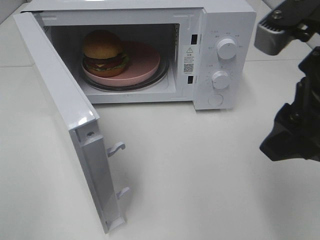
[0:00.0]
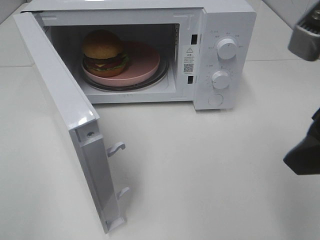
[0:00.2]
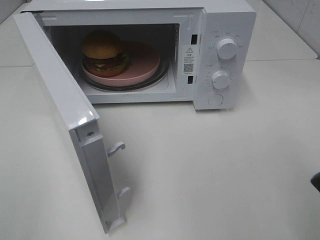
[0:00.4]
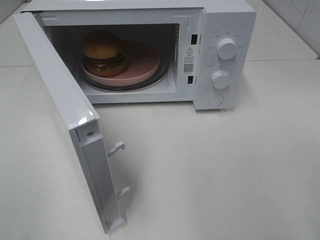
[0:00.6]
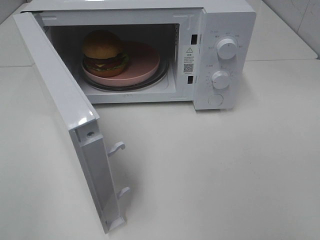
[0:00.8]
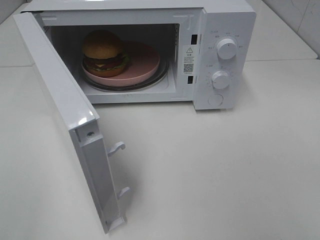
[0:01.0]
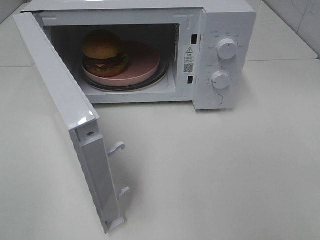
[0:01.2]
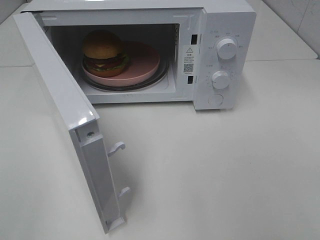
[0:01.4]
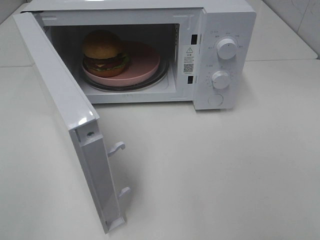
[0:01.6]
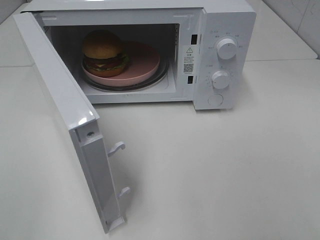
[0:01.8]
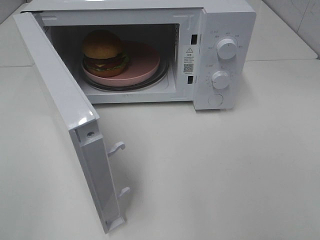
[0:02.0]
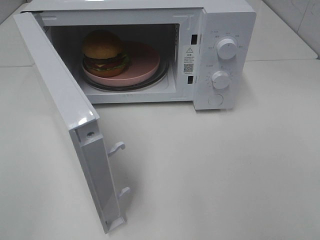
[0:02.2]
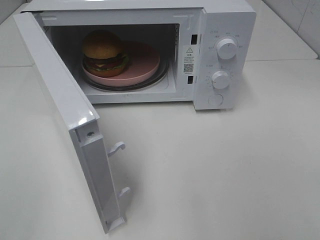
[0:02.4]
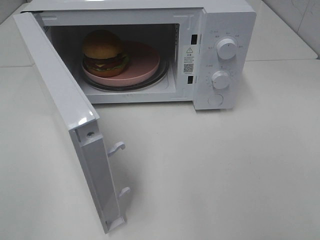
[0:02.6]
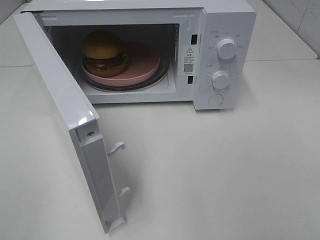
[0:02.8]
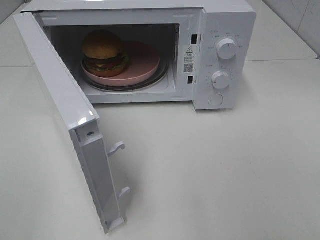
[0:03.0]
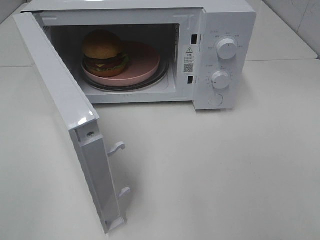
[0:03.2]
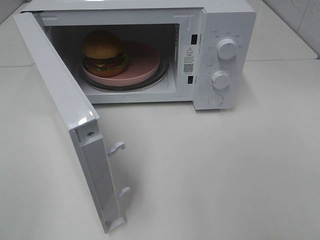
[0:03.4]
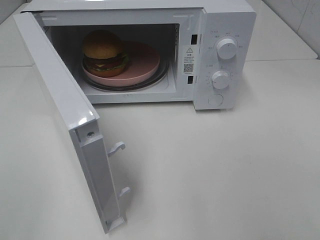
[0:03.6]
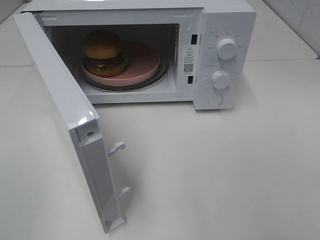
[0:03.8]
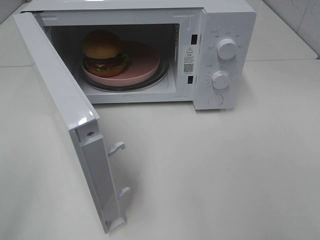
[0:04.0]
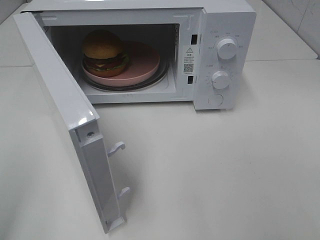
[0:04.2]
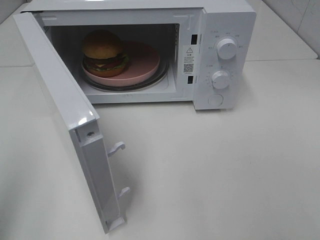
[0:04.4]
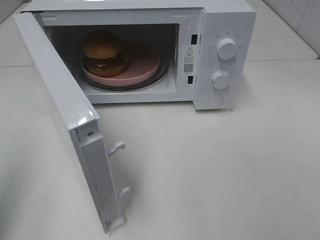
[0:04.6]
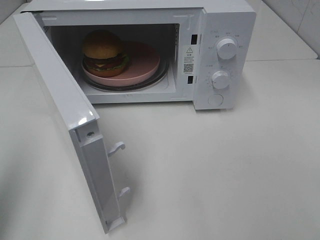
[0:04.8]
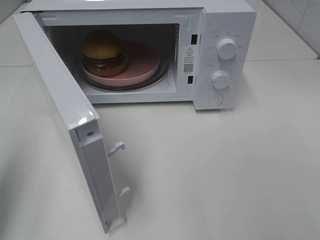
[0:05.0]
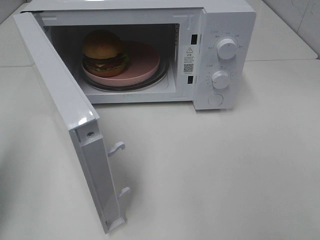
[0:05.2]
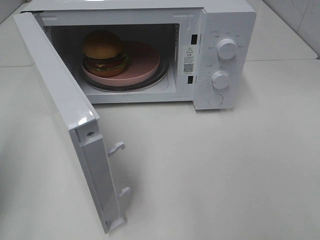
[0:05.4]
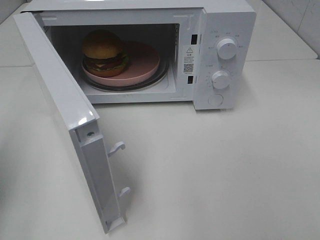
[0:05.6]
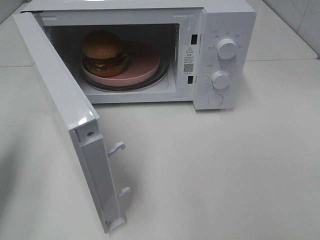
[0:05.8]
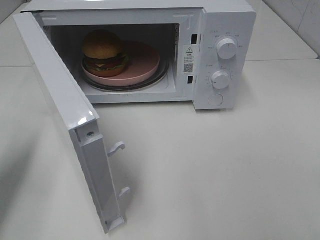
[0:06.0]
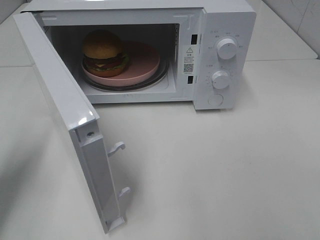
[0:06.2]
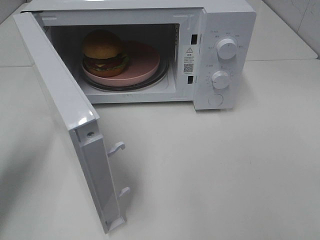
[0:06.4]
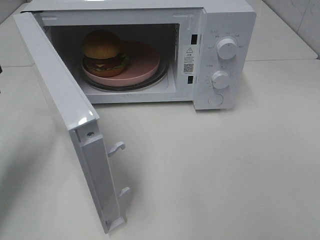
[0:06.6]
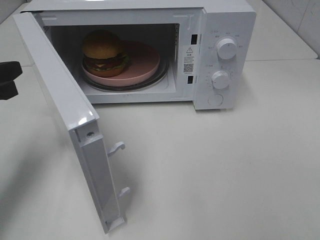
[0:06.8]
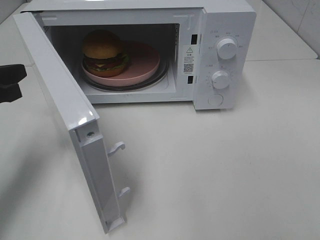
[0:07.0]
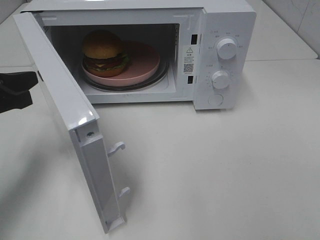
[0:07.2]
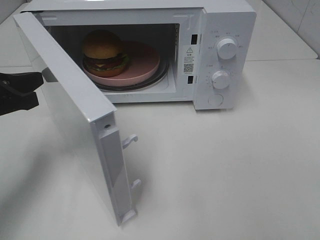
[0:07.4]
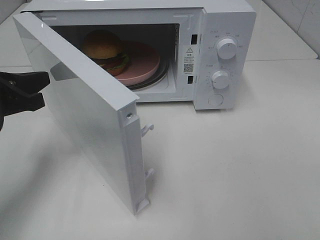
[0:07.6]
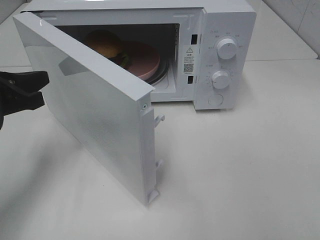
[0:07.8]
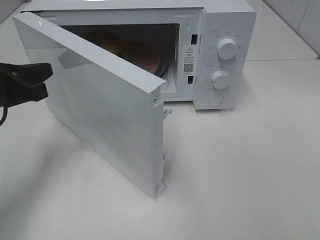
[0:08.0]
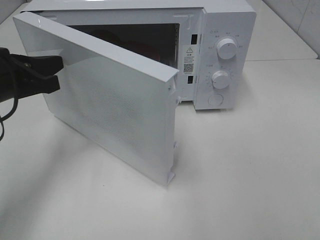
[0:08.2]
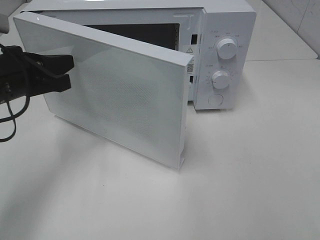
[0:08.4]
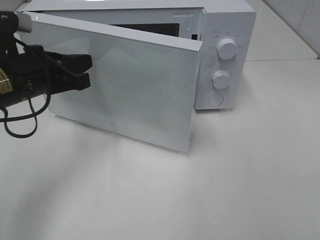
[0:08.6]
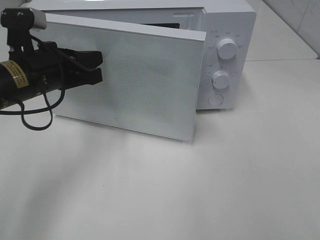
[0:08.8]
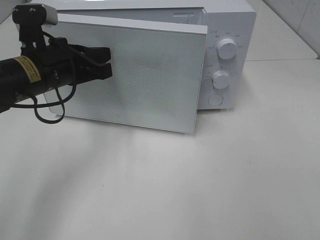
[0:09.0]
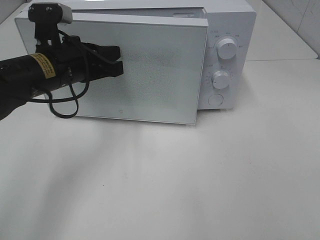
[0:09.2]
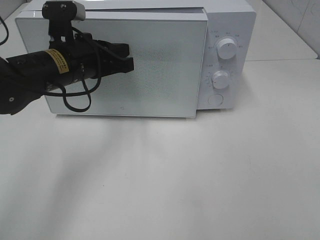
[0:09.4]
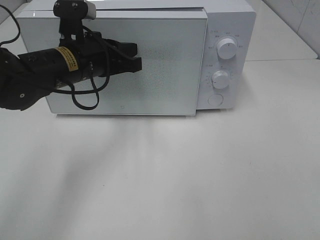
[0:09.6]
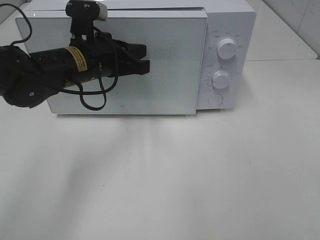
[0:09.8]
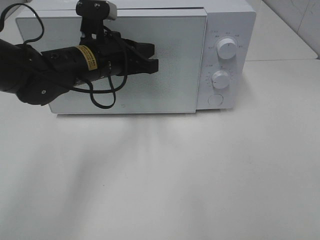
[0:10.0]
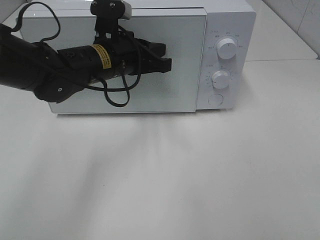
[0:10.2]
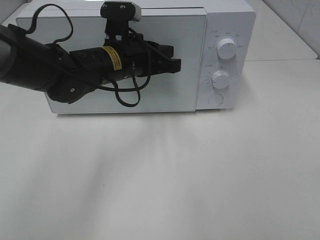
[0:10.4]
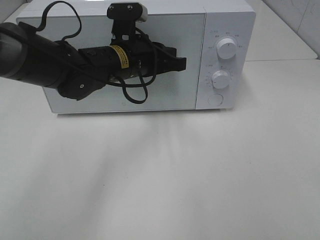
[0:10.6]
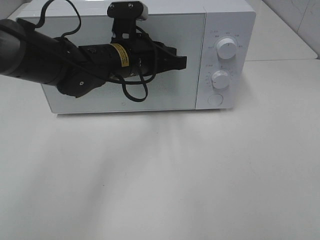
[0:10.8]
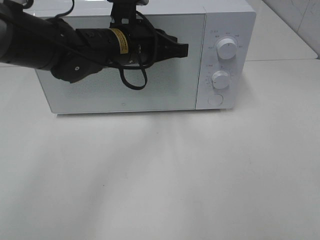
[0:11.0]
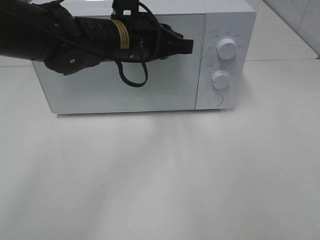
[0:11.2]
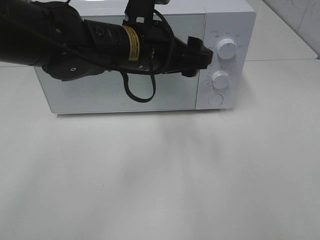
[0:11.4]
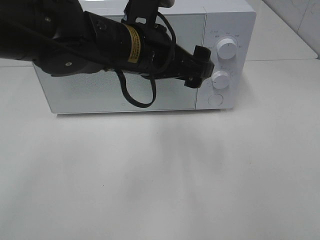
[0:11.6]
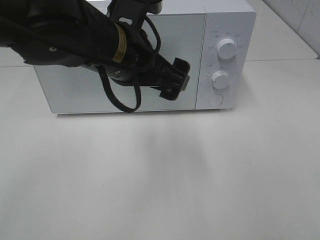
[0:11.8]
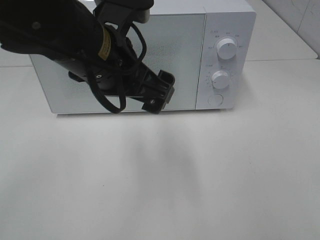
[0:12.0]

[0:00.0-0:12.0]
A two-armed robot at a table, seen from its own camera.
Task of the whole recording: Heat the burger.
Step, 0:00.0 to 0:10.4: Left hand: close the microwave door.
0:00.0 to 0:01.6: The right gripper shifts approximately 20 cm backward and to the right.
0:04.4 to 0:06.0: The left gripper travels forward and downward by roughly 15 cm.
0:06.0 to 0:07.6: The left gripper travels to the right by roughly 5 cm.
0:07.6 to 0:09.0: The left gripper moves to the right and forward, some 10 cm.
0:09.0 to 0:10.4: The left gripper shifts approximately 10 cm to the right and forward.
0:10.4 to 0:12.0: The left gripper goes roughly 15 cm backward and upward, and opens up.

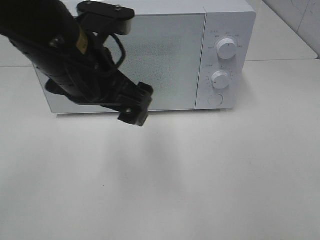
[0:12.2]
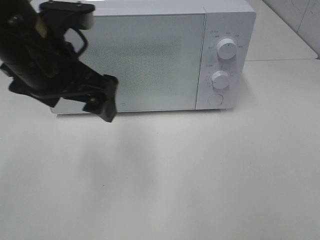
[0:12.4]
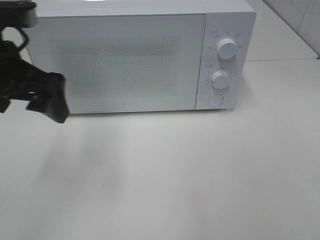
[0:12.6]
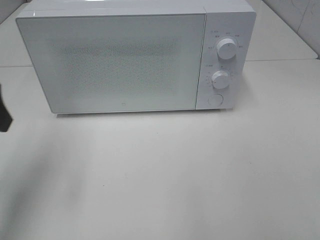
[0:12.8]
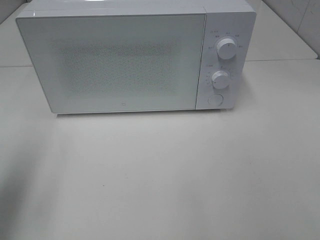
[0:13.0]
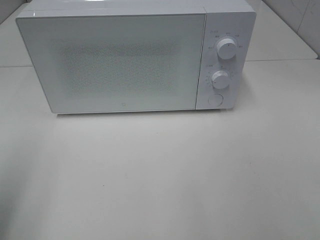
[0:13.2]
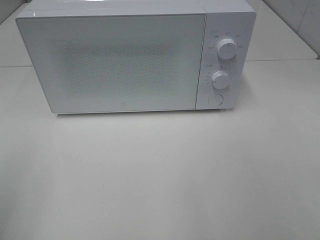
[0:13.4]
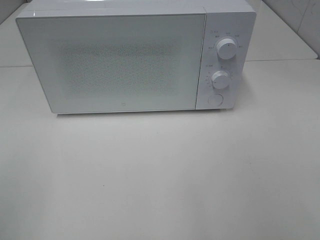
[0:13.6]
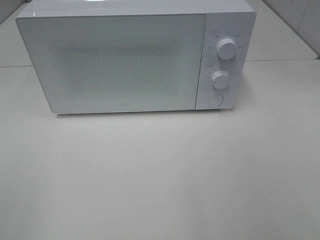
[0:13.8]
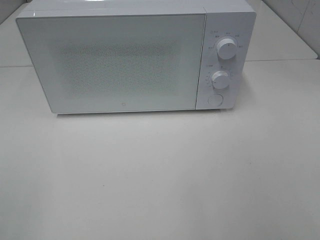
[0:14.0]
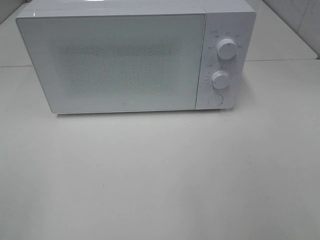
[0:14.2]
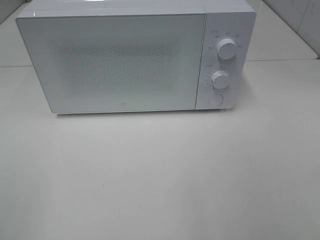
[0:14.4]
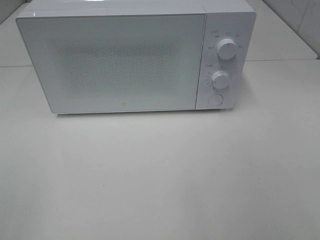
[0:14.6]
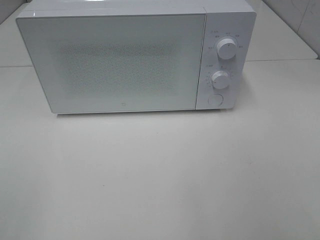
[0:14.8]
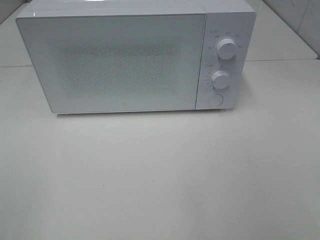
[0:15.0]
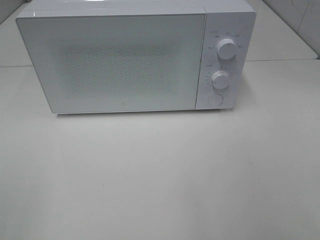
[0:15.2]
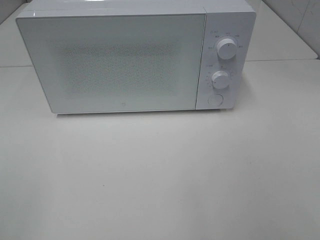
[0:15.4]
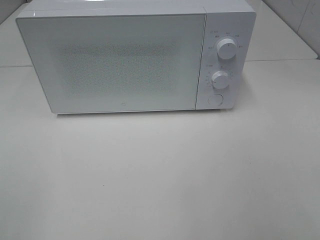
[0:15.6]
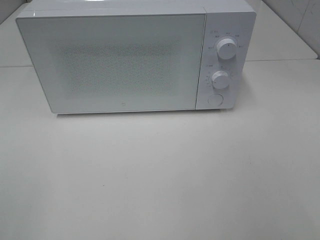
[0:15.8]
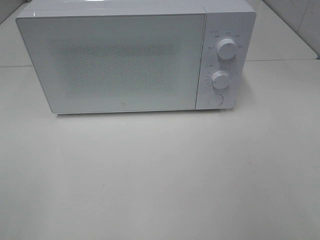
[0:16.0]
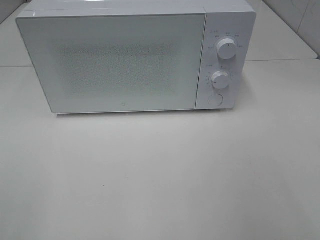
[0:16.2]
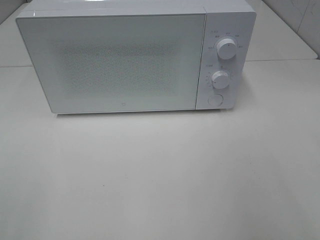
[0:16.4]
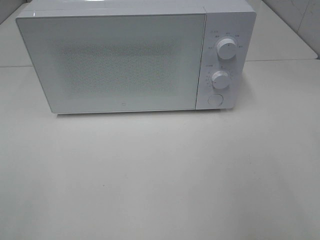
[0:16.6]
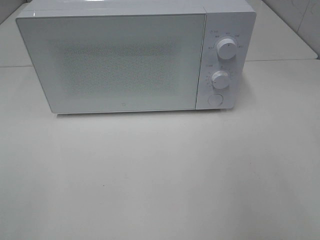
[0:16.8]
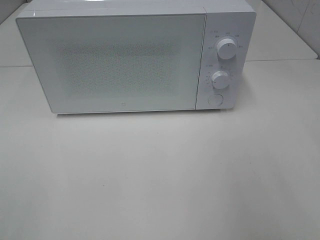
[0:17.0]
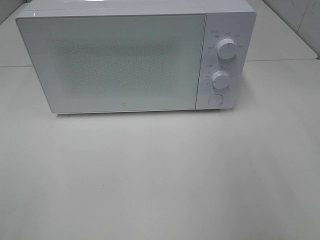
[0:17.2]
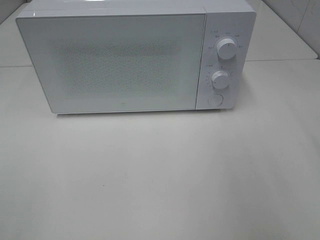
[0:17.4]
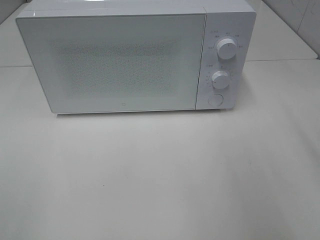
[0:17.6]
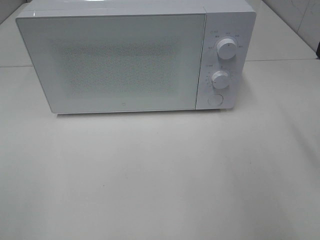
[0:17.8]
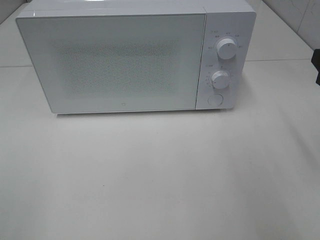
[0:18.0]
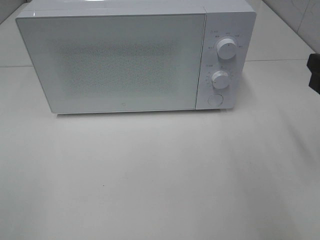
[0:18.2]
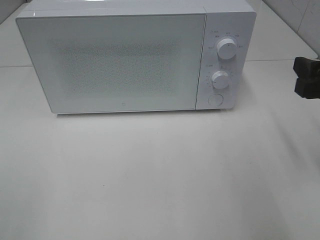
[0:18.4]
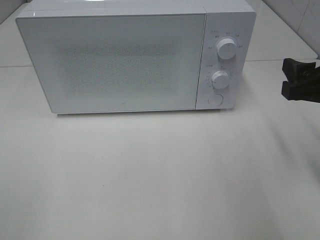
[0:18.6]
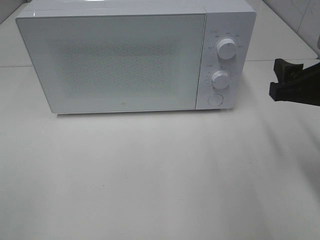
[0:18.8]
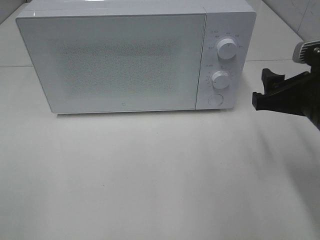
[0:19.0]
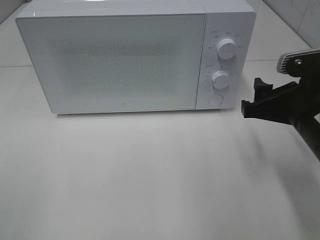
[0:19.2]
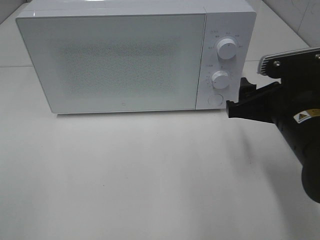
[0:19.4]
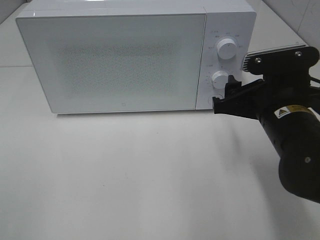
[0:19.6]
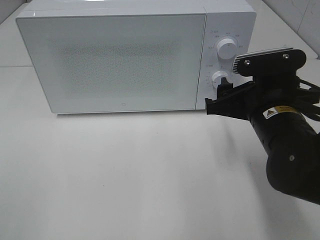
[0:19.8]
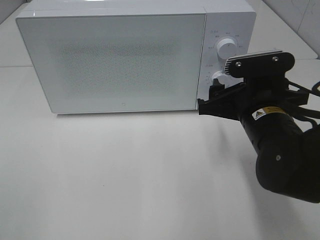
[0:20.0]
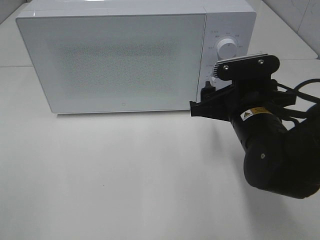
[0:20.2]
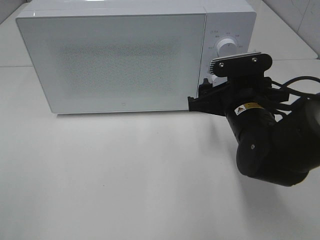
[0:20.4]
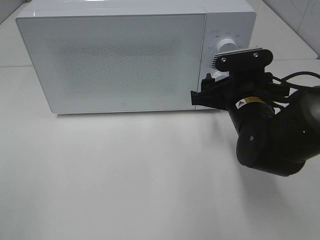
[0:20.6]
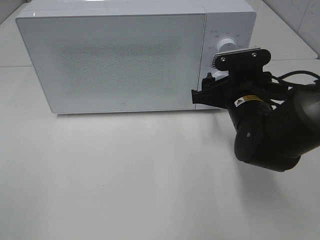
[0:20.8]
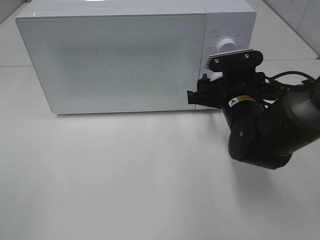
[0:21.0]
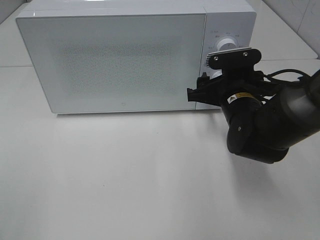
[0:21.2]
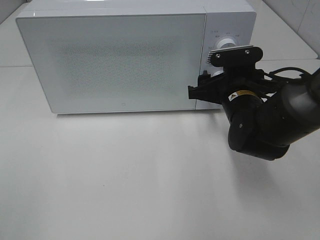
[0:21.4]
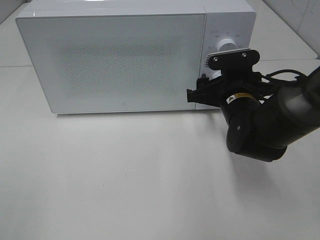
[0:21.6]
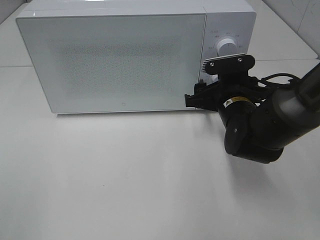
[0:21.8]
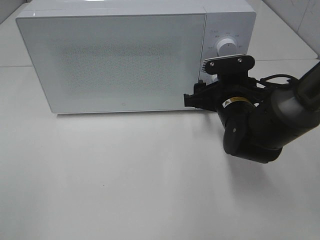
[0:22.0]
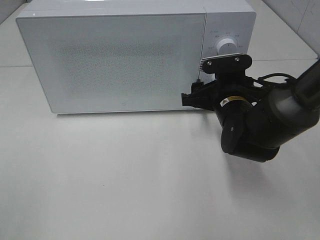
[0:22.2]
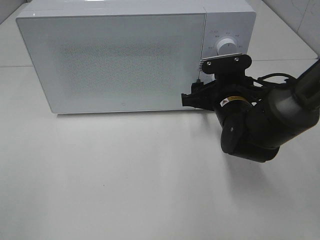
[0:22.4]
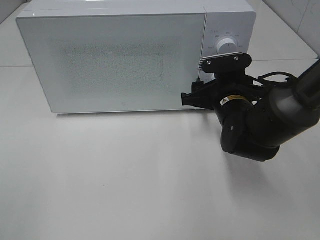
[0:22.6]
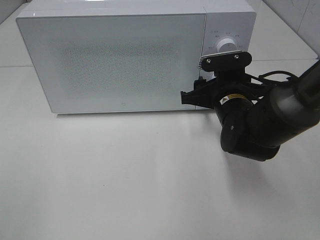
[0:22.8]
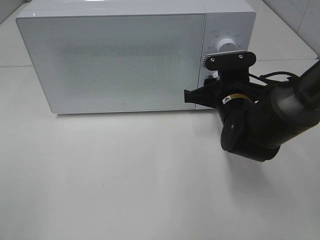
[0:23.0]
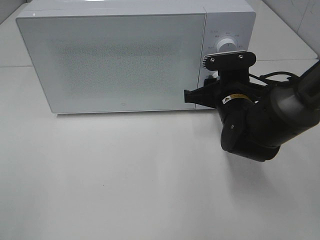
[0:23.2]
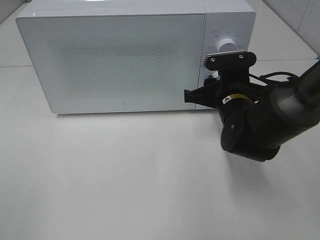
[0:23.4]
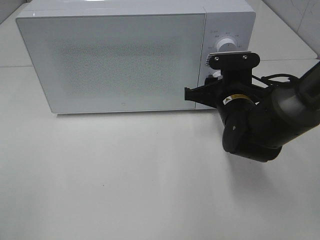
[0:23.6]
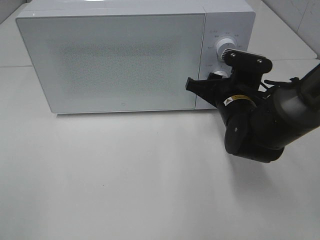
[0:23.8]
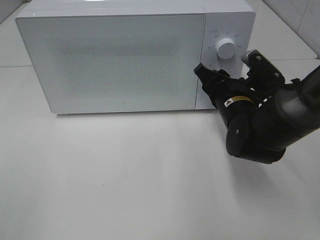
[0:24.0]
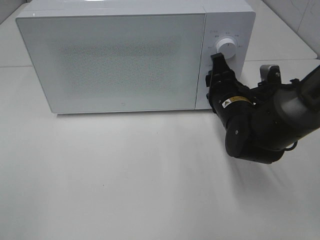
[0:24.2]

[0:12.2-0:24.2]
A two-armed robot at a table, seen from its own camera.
Task of the whole recording: Heat the burger.
0:12.2 to 0:13.8: The left gripper travels backward and to the left by roughly 35 cm.
0:13.8 to 0:15.2: Neither gripper changes place.
0:16.6 to 0:18.2: The right gripper is displaced forward and downward by some 15 cm.
0:18.2 to 0:19.8: The right gripper travels to the left and downward by roughly 15 cm.
0:19.8 to 0:21.2: The right gripper goes approximately 10 cm forward.
0:21.2 to 0:22.6: The grippers stay close to where they were, moving slightly.
